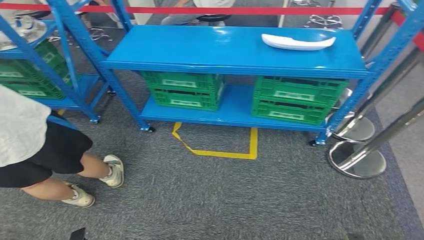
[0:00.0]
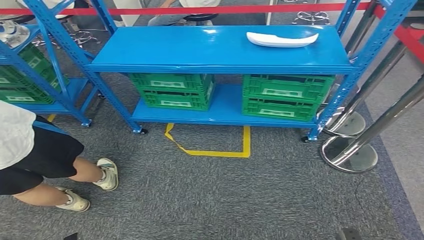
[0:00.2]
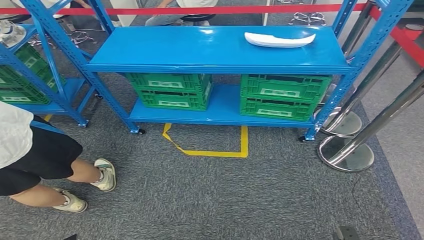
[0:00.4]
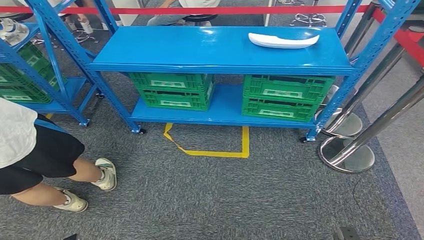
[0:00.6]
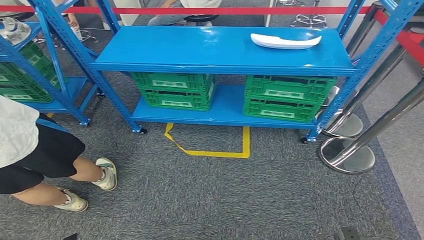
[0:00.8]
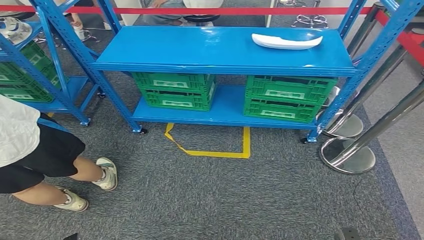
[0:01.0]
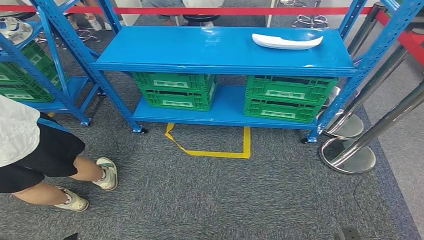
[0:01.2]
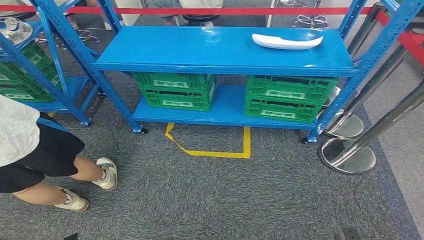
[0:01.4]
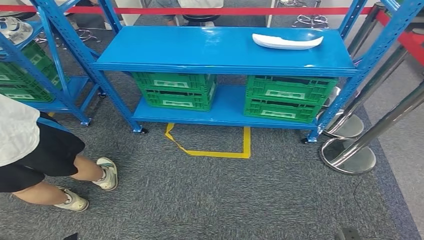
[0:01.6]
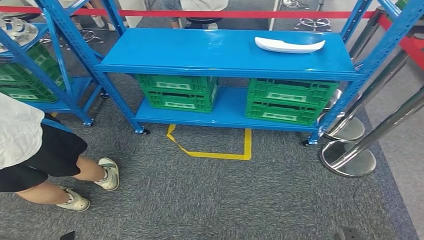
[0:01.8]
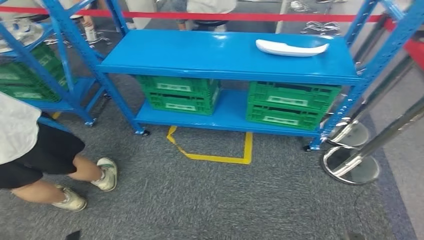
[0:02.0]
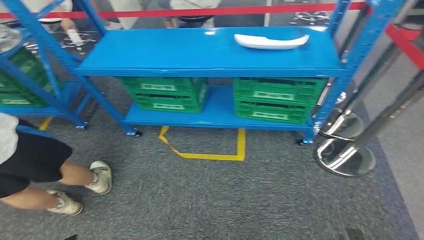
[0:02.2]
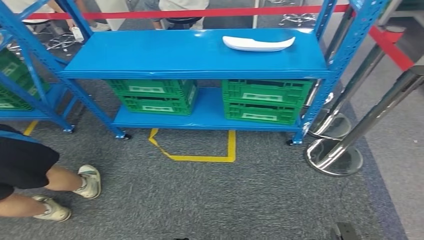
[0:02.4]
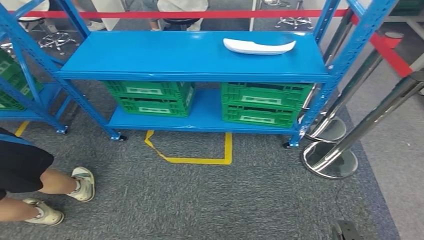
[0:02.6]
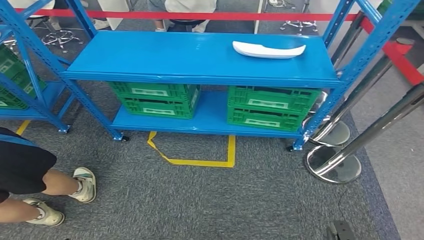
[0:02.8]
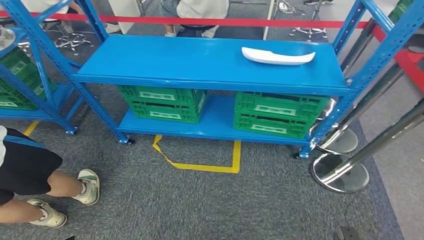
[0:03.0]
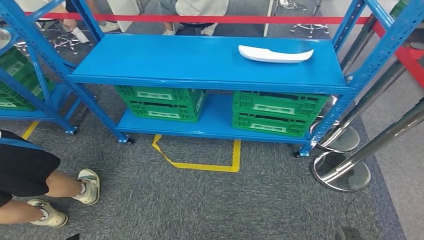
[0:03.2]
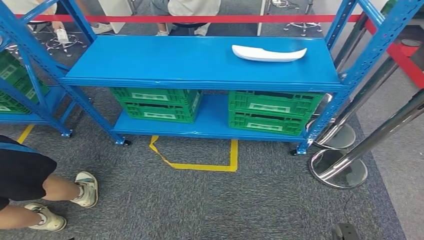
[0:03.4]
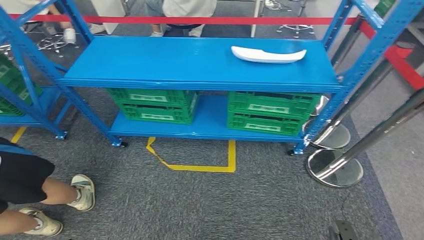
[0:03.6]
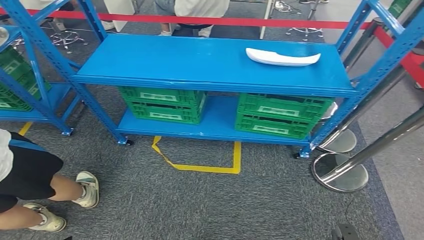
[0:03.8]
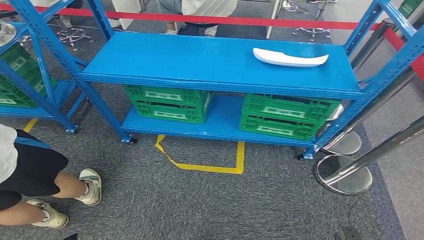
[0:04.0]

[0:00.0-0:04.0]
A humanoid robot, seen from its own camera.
Step, 0:00.0 to 0:04.0: Return to the initial position at the workbench.
